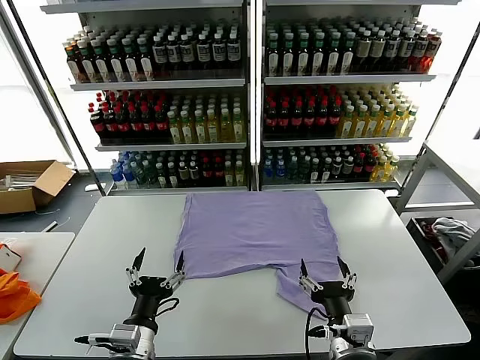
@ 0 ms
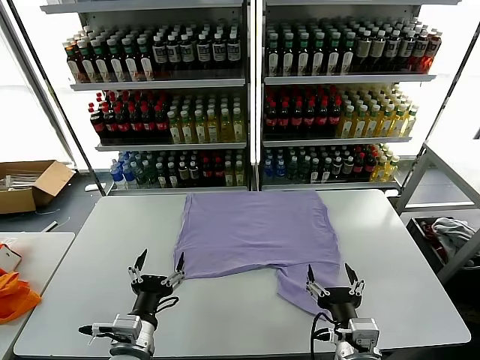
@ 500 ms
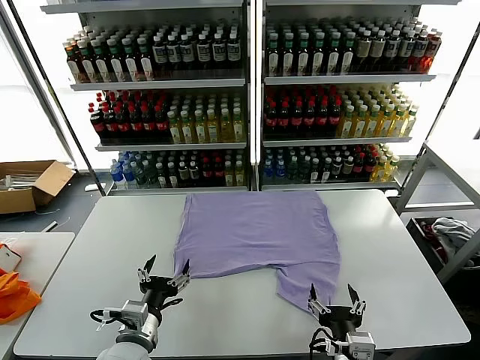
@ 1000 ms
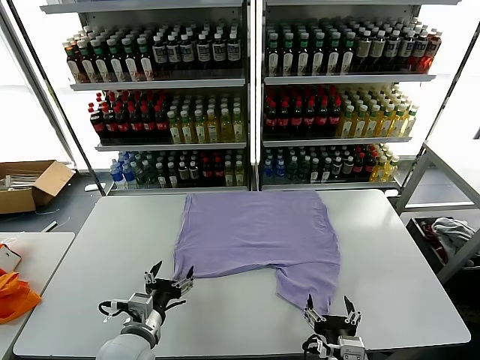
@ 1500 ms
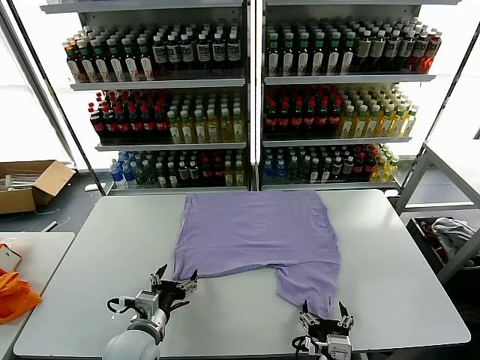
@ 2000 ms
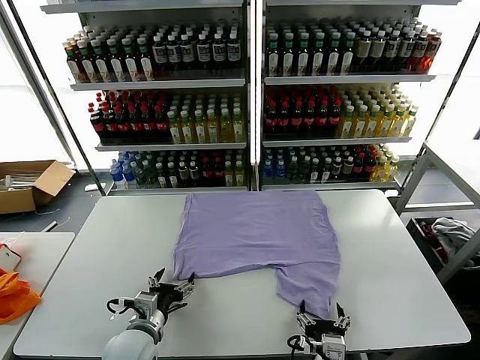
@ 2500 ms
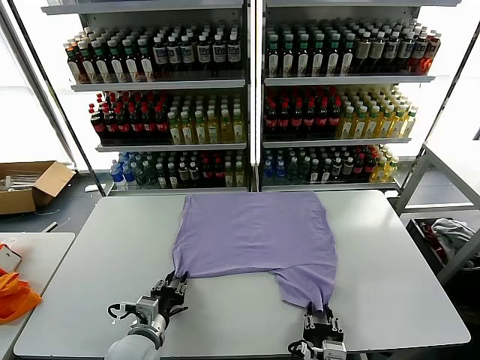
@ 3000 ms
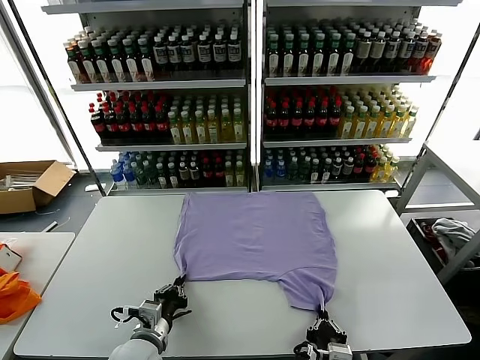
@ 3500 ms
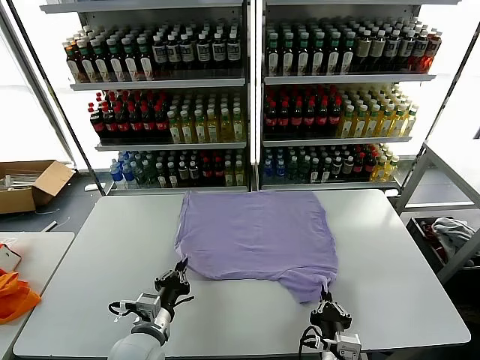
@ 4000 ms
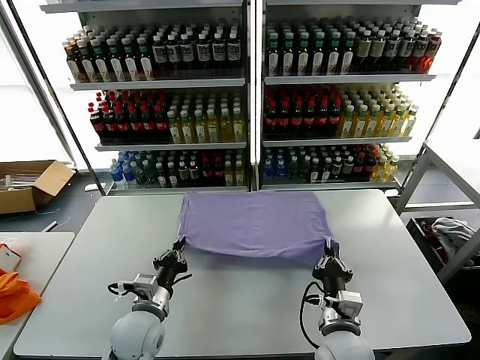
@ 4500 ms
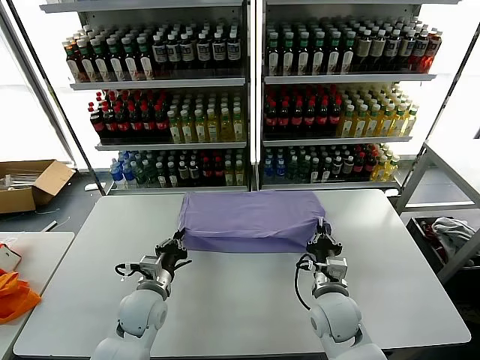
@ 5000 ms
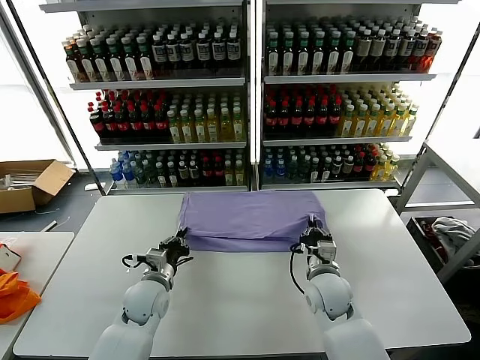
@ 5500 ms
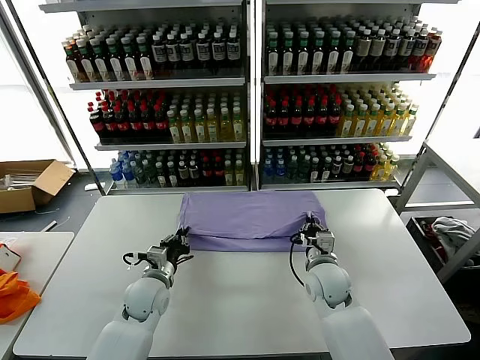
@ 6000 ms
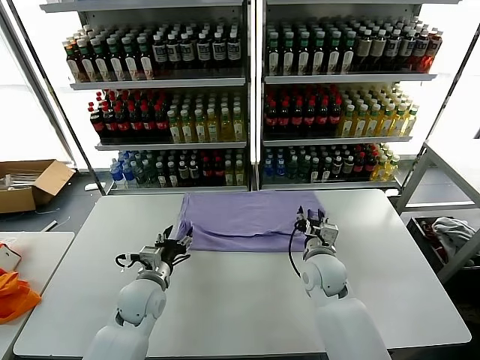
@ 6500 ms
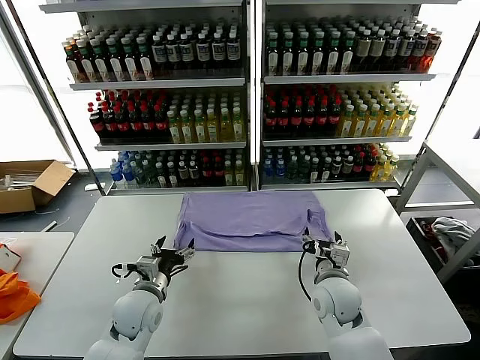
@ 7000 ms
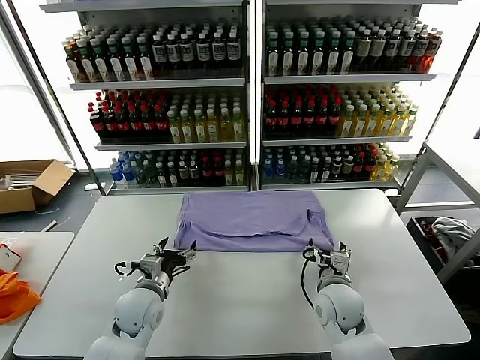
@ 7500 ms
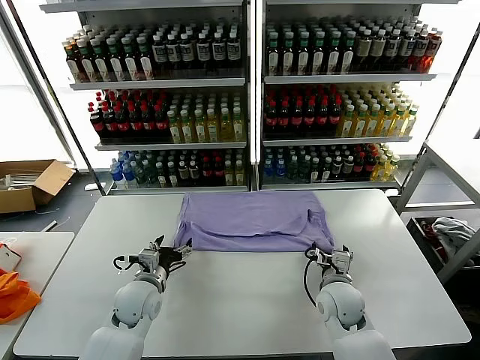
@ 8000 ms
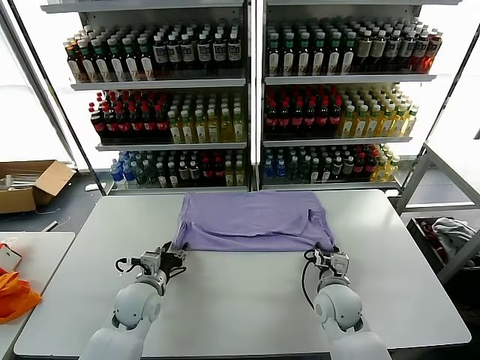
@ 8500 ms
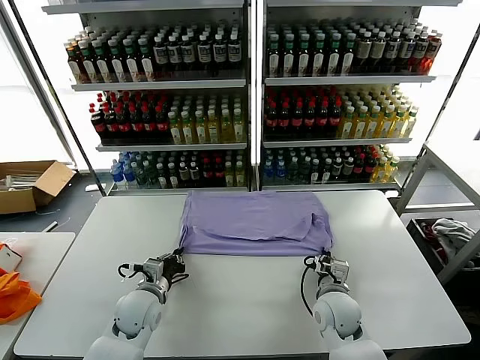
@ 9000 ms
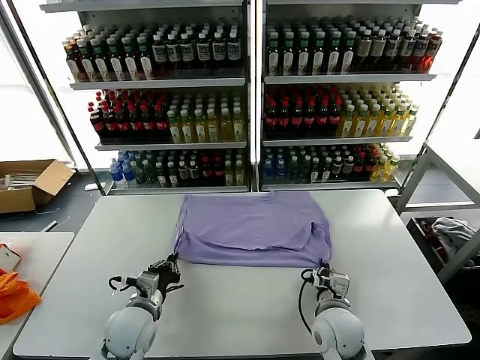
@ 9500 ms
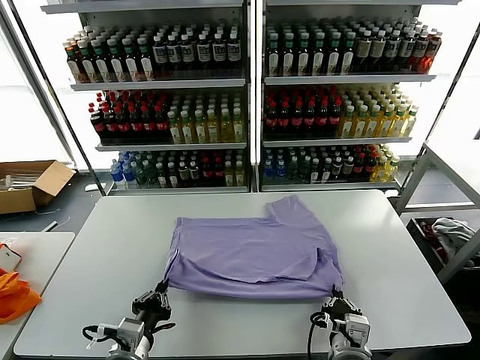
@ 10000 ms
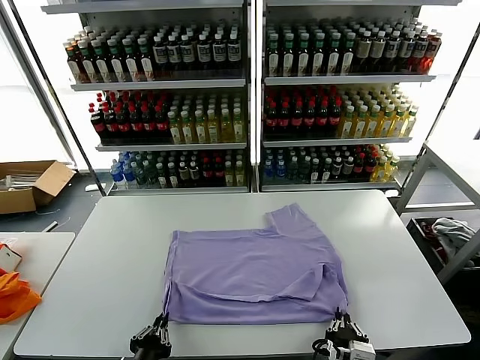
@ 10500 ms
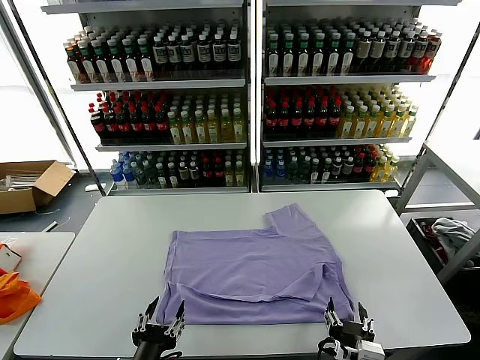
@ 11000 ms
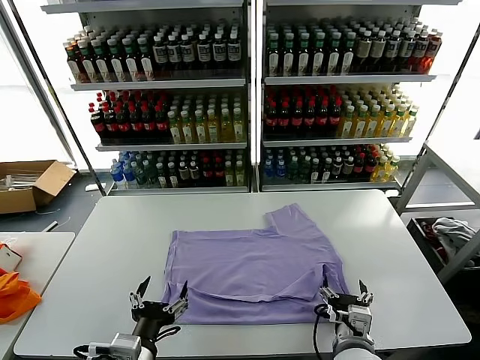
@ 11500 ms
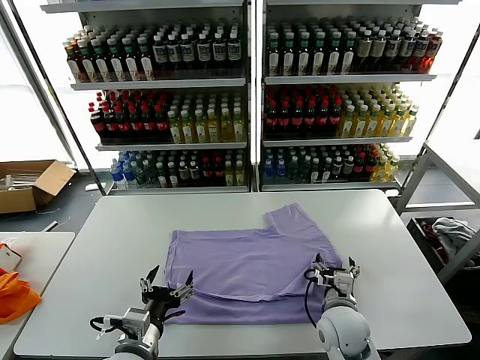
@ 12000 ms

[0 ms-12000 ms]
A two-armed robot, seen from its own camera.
Task of the whole recording: fold and organize the clothes.
Step, 0 ms to 3500 ms: use both grippers simultaneously to clamp the lower edge of the clothing fabric.
Step, 4000 ms to 6000 ms: use both grippers to drag the lower edge of the fabric forward and fold it over the upper edge.
Step, 6500 ms to 10500 ms: Drag the clothes downward with both gripper.
2000 ms to 4000 ms: The left gripper closes. The right gripper closes up.
4000 ms to 6000 ms: The left gripper shifts roughly 15 cm forward; the right gripper travels forward by about 20 cm.
6000 ms to 8000 ms: The left gripper opens. Meanwhile the right gripper changes place by about 5 cm, and opens up.
8000 ms to 10000 ms: The grippers both shift backward by approximately 20 cm. The left gripper closes up. The right gripper closes.
10000 ms to 12000 ms: The left gripper reaches some 5 cm backward, then returns, and opens. Meanwhile the right gripper shifts some 15 cm forward, and opens.

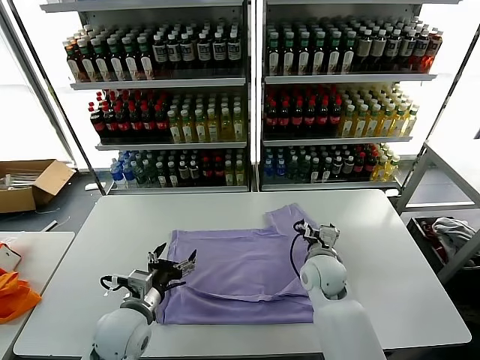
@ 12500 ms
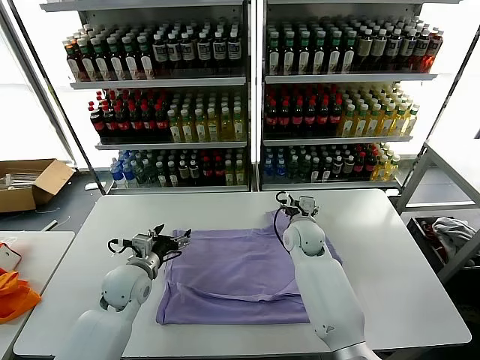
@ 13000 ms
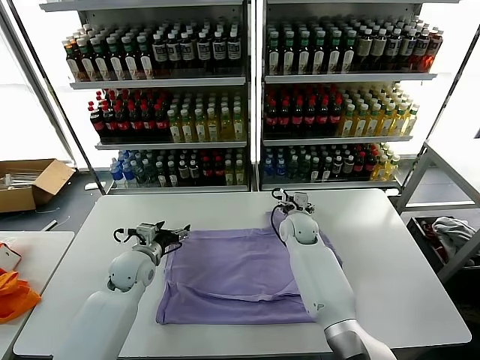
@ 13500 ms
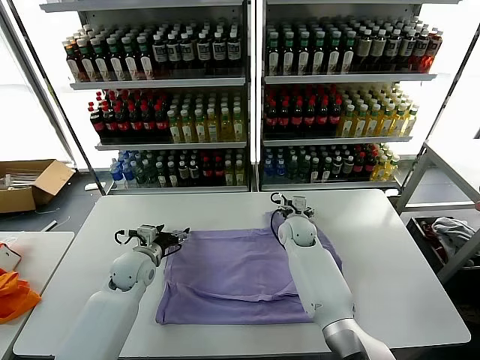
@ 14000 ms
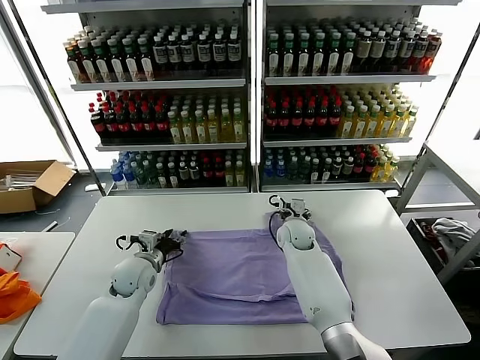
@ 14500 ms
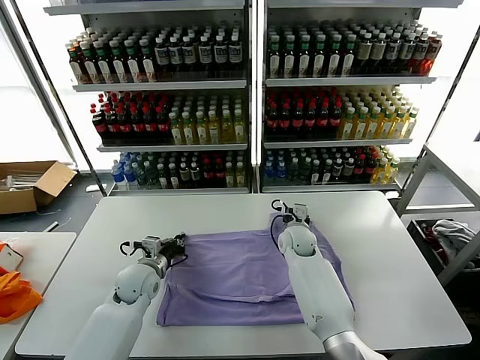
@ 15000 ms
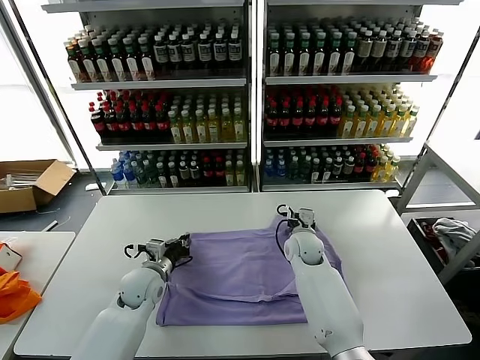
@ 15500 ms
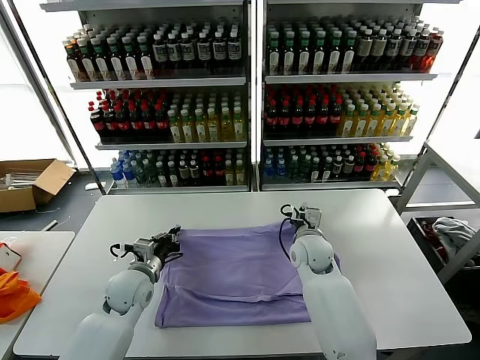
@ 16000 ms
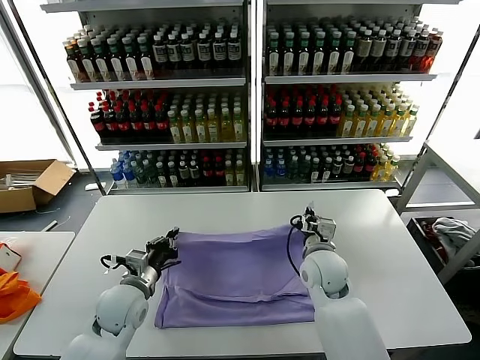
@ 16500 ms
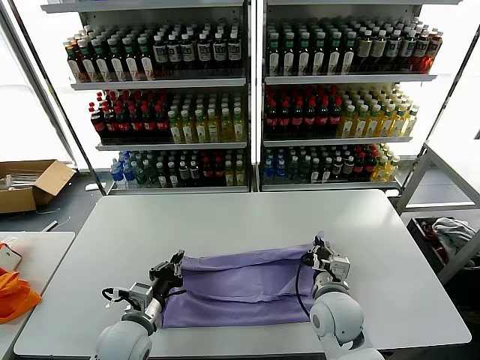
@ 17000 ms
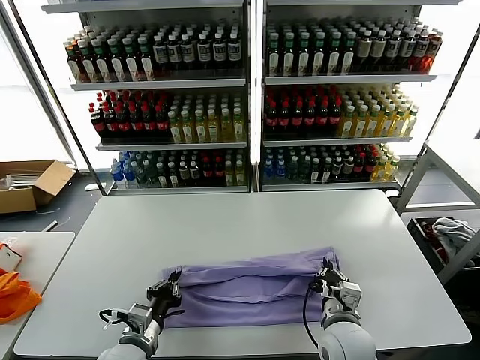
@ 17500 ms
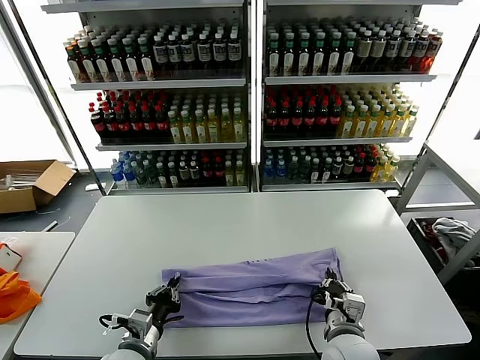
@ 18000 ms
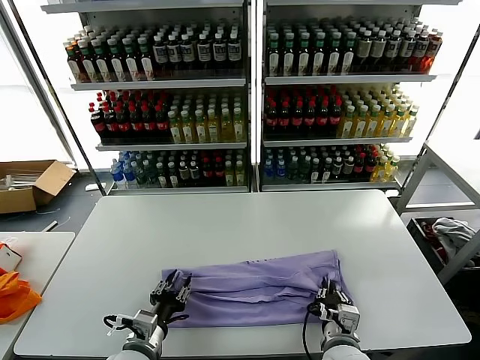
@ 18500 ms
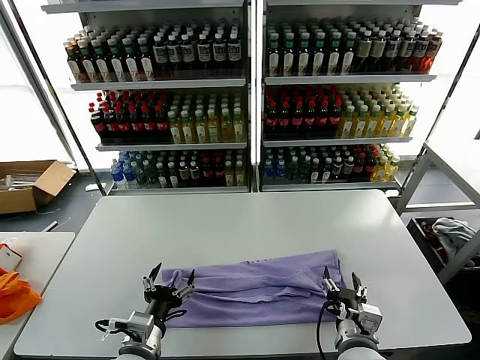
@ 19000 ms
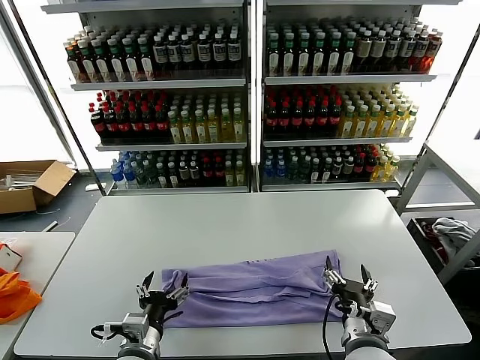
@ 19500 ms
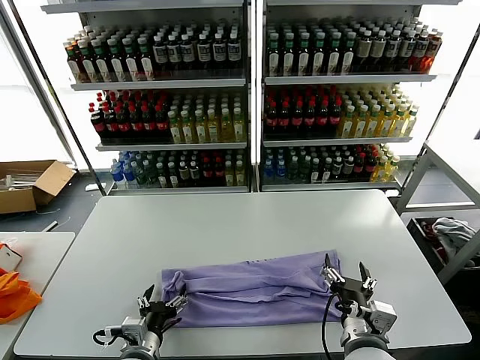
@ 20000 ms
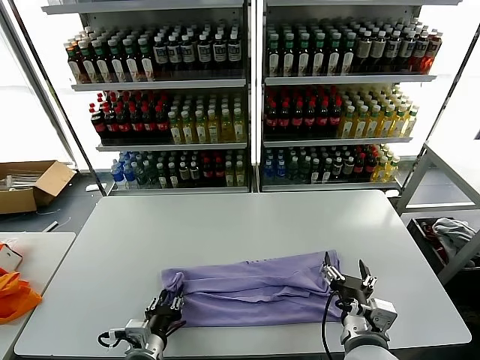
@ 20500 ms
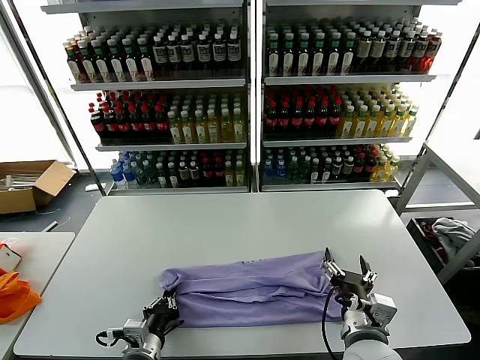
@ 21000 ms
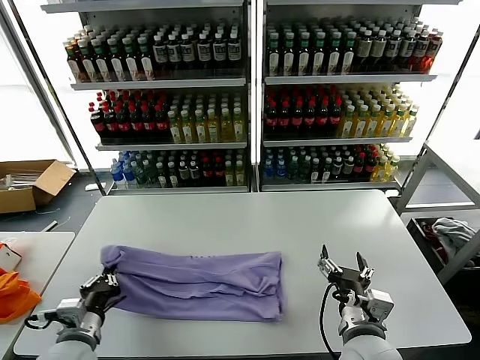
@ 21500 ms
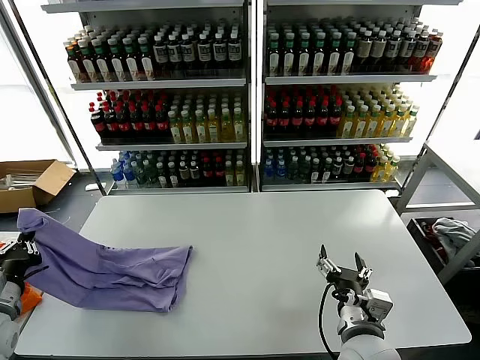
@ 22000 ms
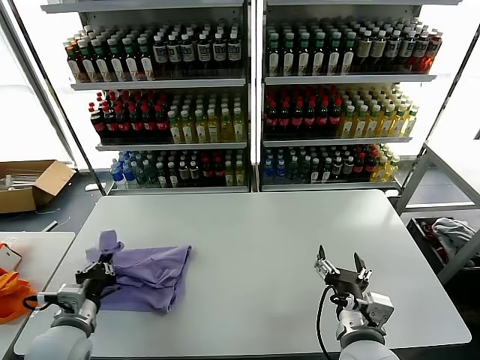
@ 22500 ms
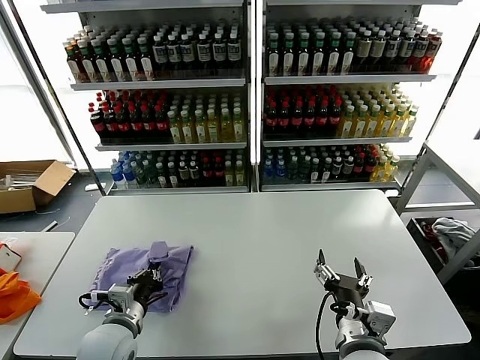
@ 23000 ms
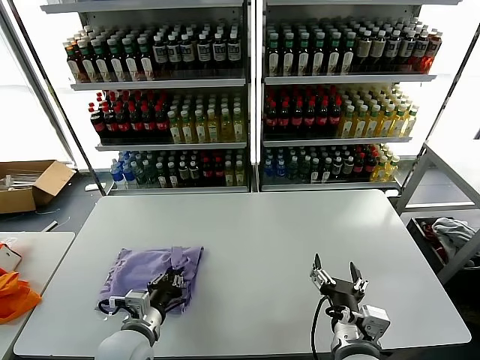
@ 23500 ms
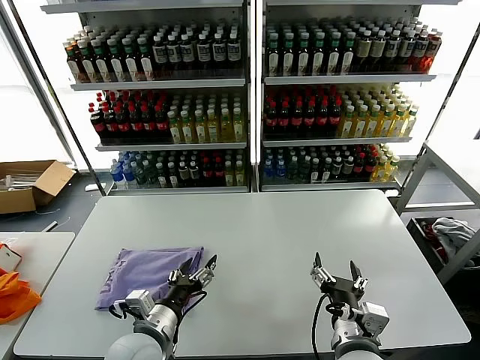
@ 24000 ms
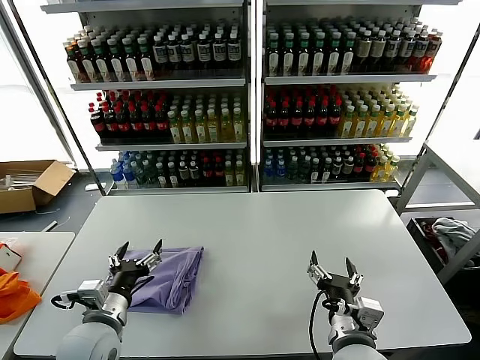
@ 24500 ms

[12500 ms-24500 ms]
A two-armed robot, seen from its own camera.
Task of the whole recording: fold and organize the clothes.
Step, 12500 ms to 15500 ms: use both grippers simultaneously to clamp the upper edge of the clothing fabric.
Step, 16000 ms to 18500 ms: use both grippers to drag the upper edge of the fabric backward and fold it over the lower edge.
Step, 19000 ms to 20500 ms: use the left gripper to clamp the left edge of the fabric.
Step, 21000 ms to 23500 ms: use the left gripper to drag the left edge of the fabric to the left and folds it over the right edge.
12500 ms to 14500 ms: Both grippers travel together forward, about 10 cm. The left gripper closes.
14500 ms to 16500 ms: The right gripper moves backward and upward, approximately 15 cm, and closes its fingers. The left gripper moves backward, roughly 10 cm, and closes up.
16500 ms to 18500 ms: The two grippers go some 15 cm backward. The left gripper opens up.
18500 ms to 20500 ms: The right gripper moves upward, about 10 cm, and opens up; the left gripper opens, then closes once more.
20500 ms to 22500 ms: The left gripper heads to the left and upward, covering some 15 cm.
22500 ms to 24500 ms: The left gripper heads to the right, covering approximately 5 cm, and opens up.

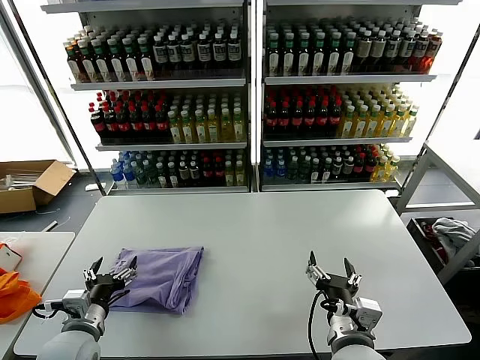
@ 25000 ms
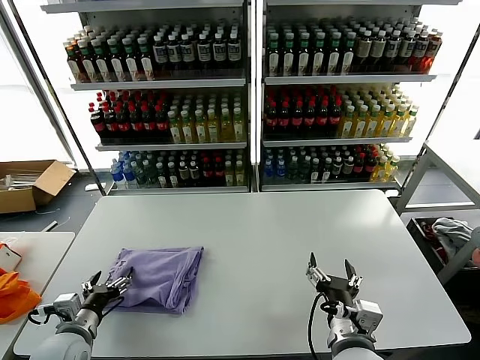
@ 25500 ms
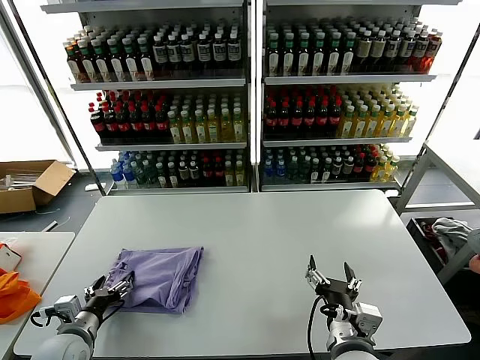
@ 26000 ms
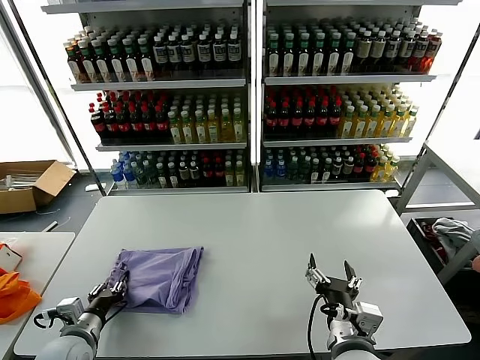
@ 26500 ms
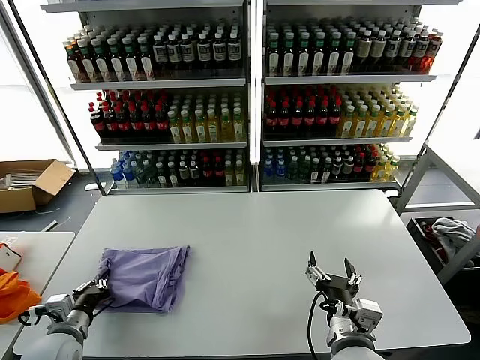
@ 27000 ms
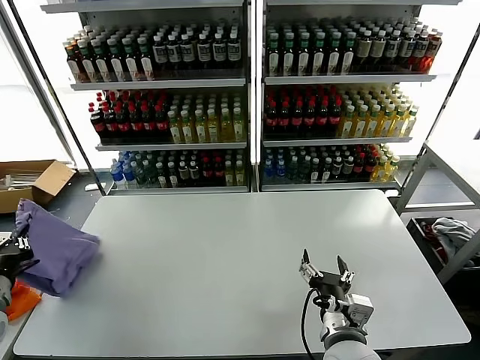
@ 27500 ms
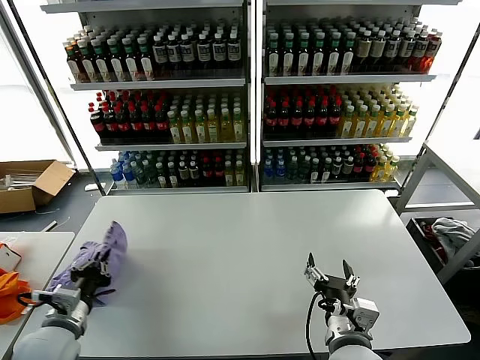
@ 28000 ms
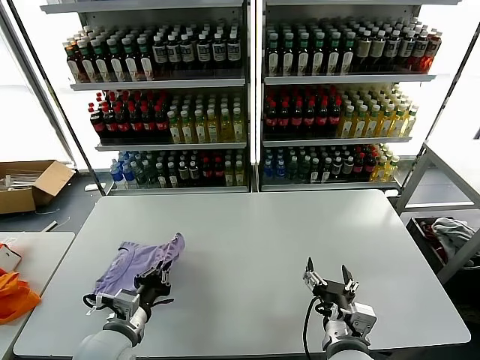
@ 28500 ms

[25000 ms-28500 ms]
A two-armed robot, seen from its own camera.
Task of the whole recording: fold and organize the clothes.
25000 ms to 27000 ms: The left gripper shifts by approximately 5 cm, and closes up.
27000 ms to 28500 ms: The left gripper travels to the right by roughly 10 cm.
